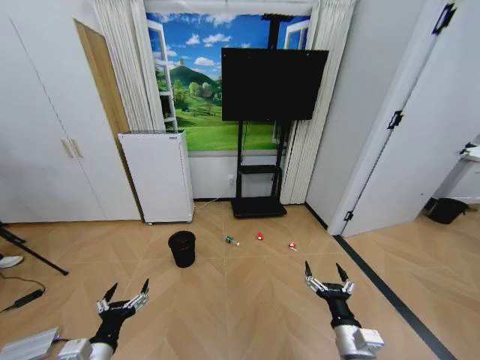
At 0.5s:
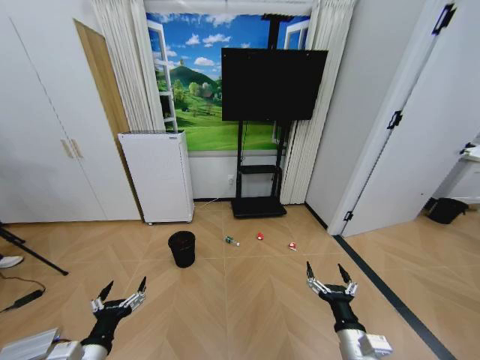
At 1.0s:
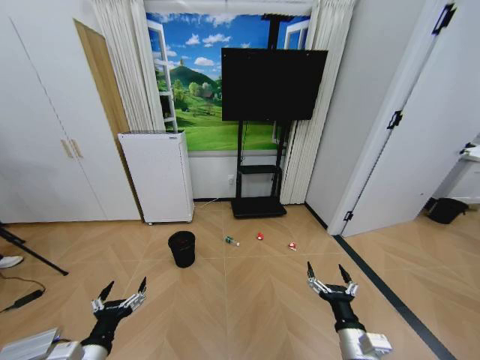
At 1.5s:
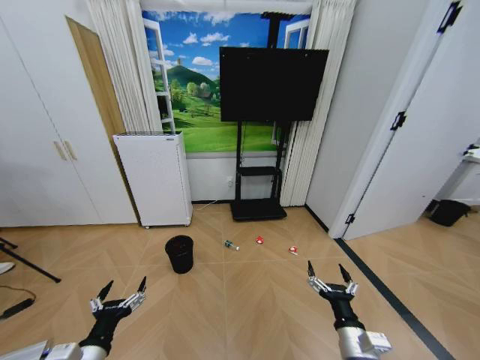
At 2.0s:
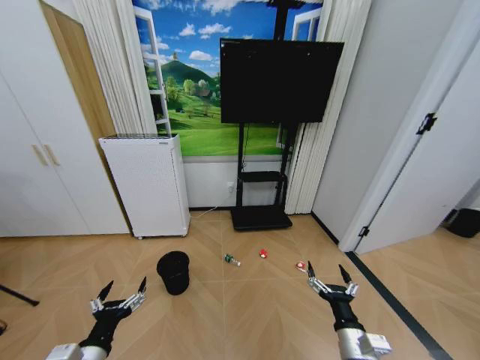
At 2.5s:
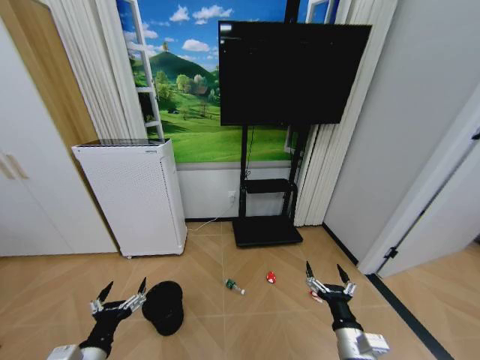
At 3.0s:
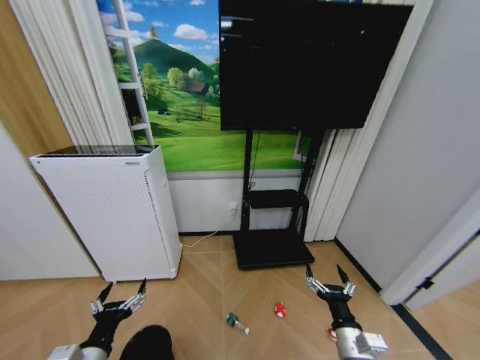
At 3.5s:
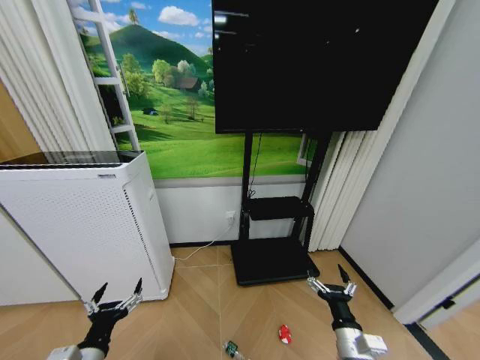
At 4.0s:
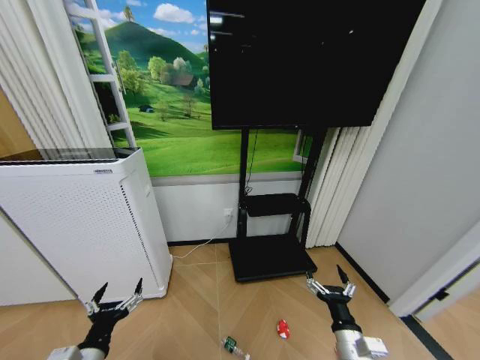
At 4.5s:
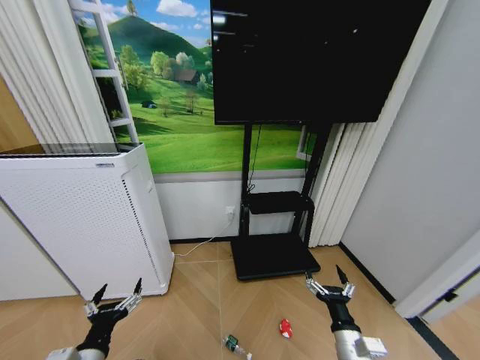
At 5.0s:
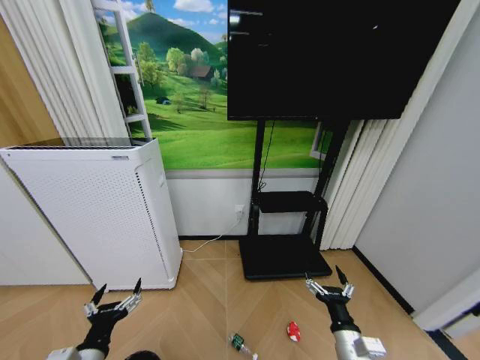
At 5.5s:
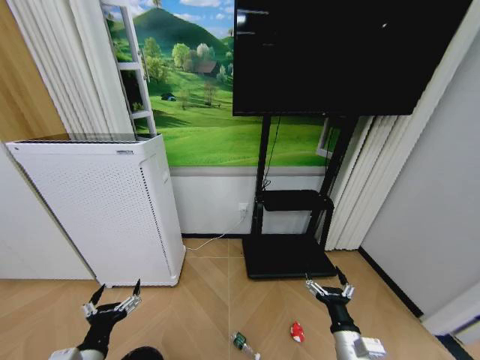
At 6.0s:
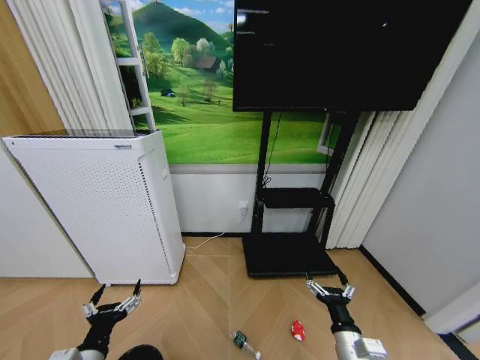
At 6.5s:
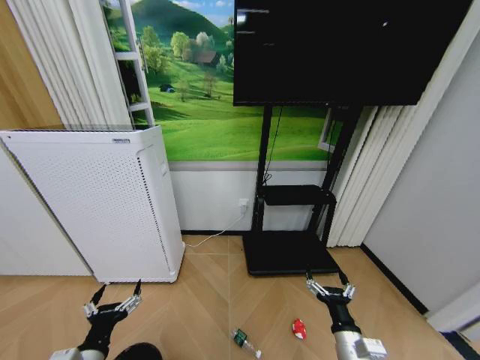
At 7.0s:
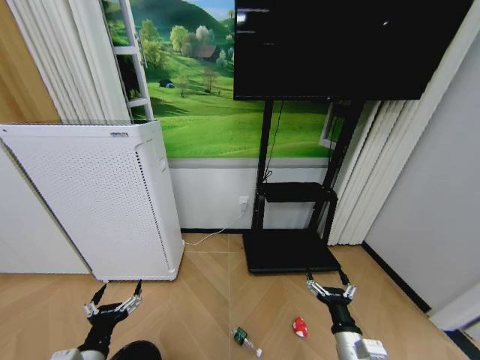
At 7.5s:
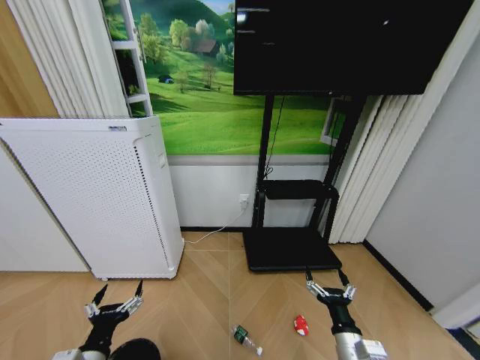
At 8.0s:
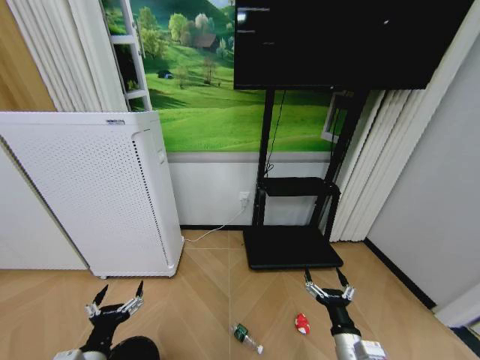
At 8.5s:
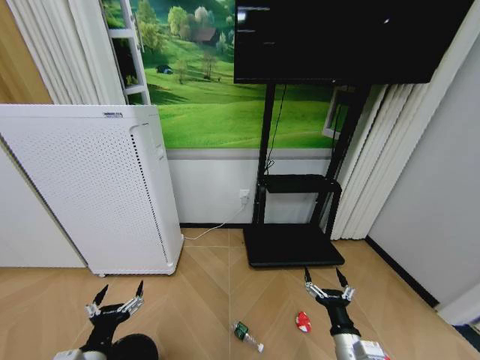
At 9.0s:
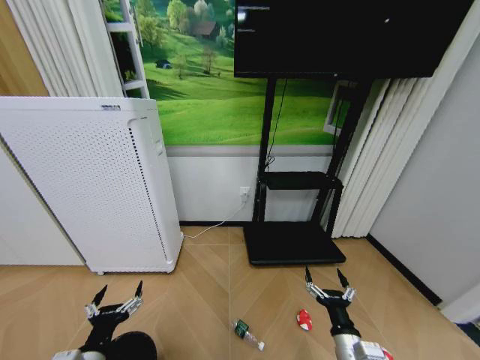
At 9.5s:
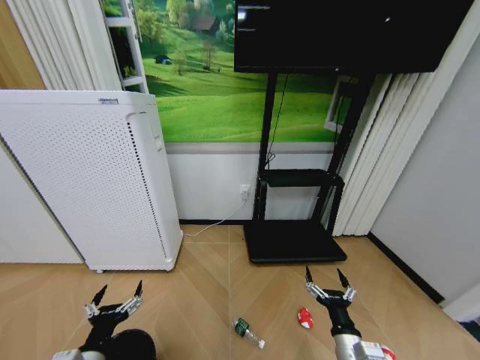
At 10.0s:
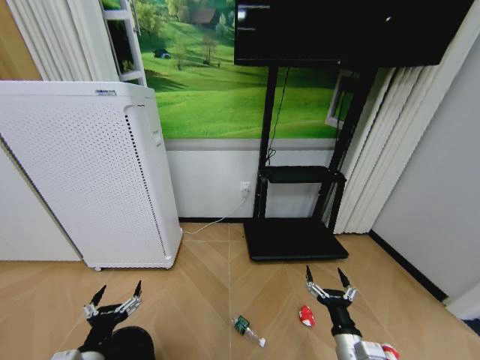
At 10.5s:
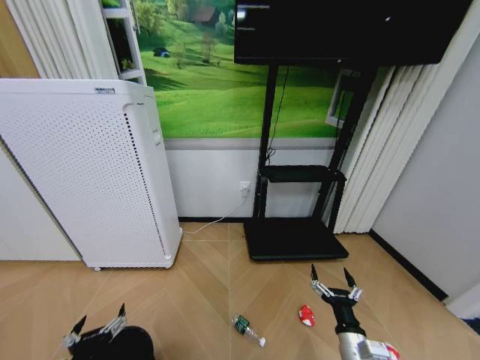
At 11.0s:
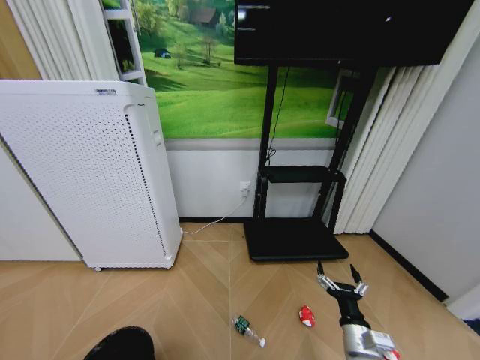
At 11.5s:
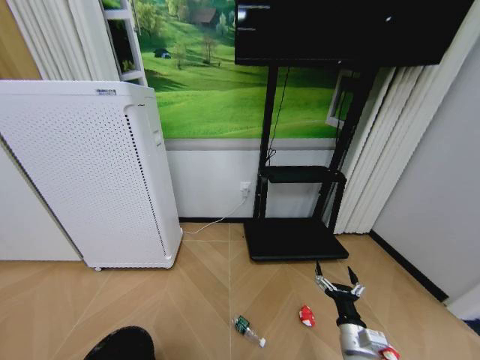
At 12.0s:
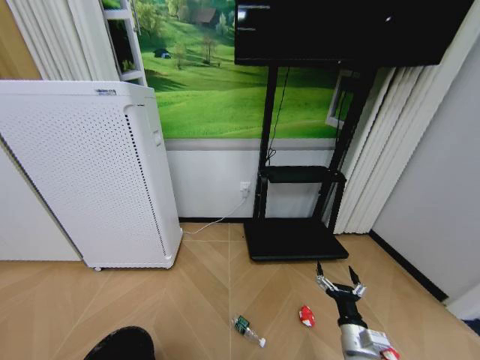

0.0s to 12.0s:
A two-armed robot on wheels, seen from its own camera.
Task of the whole recording: Pick up the trash bin and place the garbage on the floor into it.
10.0s to 12.0s: The left gripper is displaced downward and to the left by roughly 10 cm.

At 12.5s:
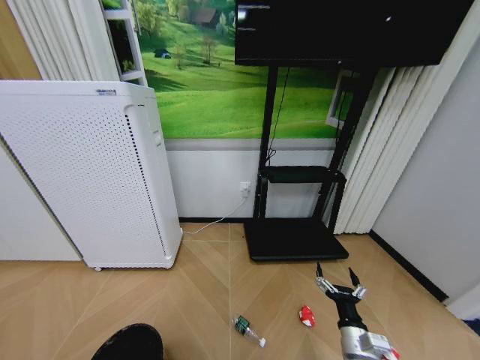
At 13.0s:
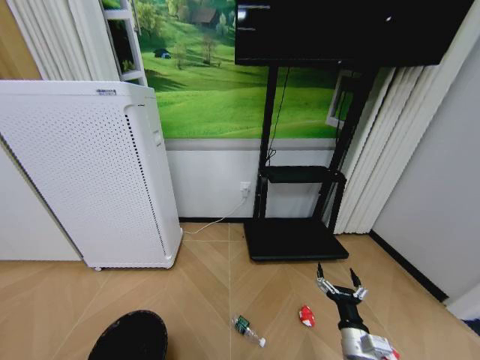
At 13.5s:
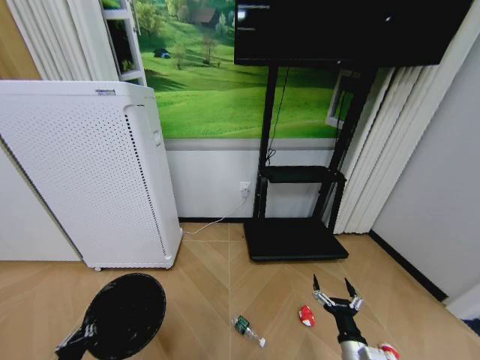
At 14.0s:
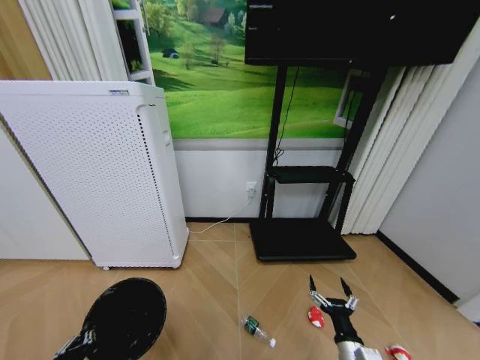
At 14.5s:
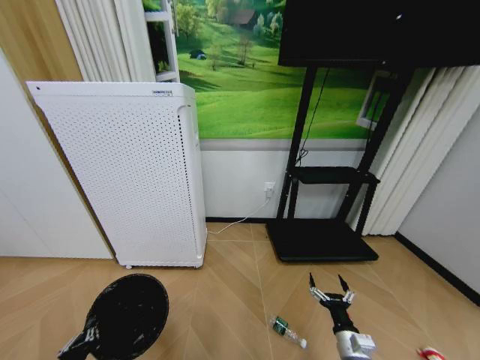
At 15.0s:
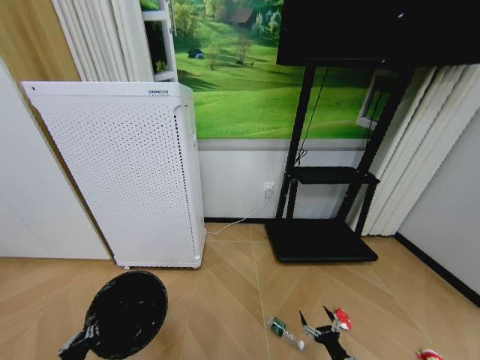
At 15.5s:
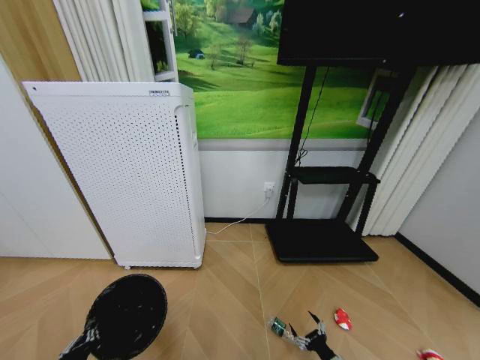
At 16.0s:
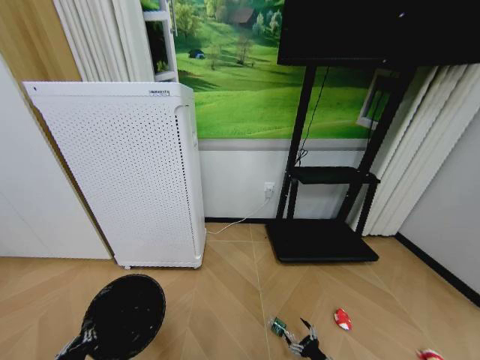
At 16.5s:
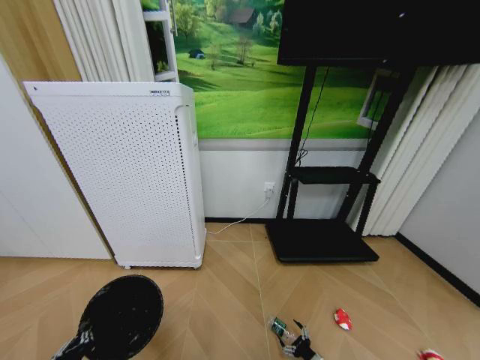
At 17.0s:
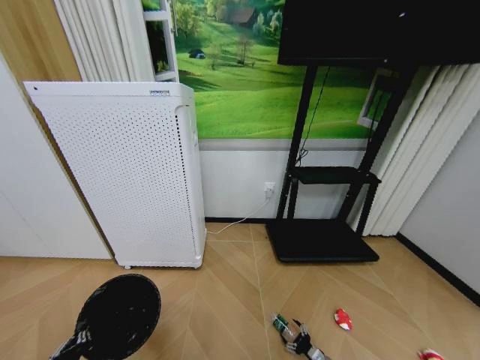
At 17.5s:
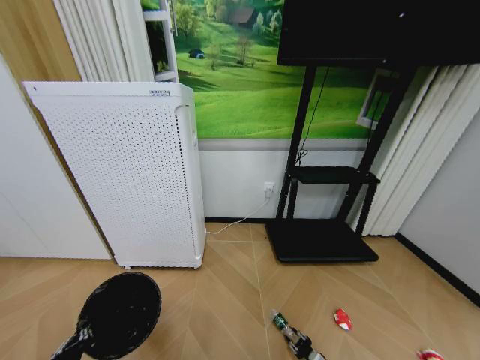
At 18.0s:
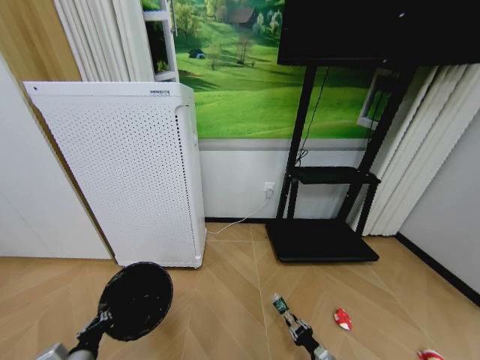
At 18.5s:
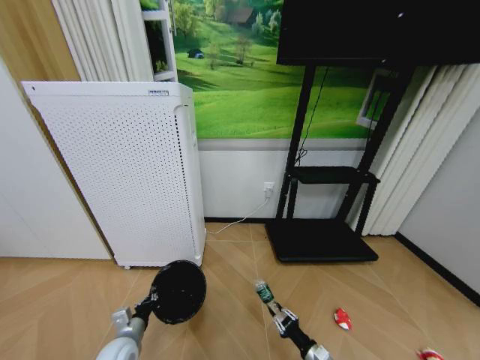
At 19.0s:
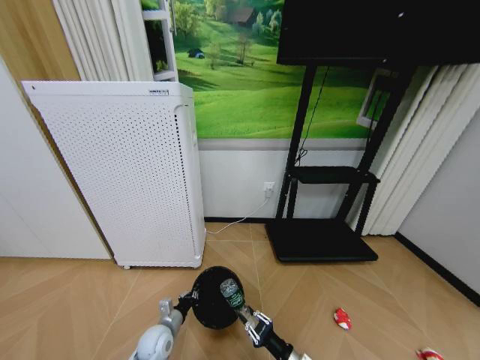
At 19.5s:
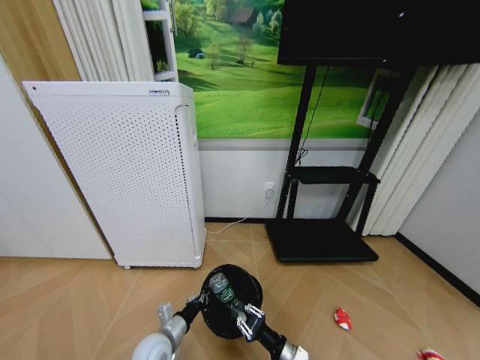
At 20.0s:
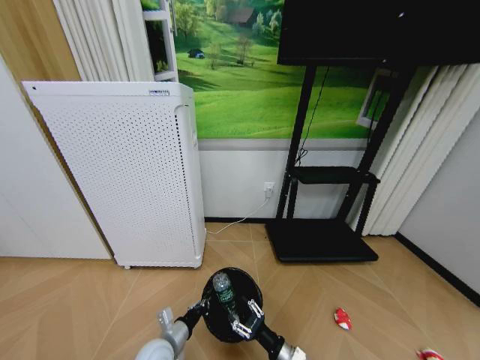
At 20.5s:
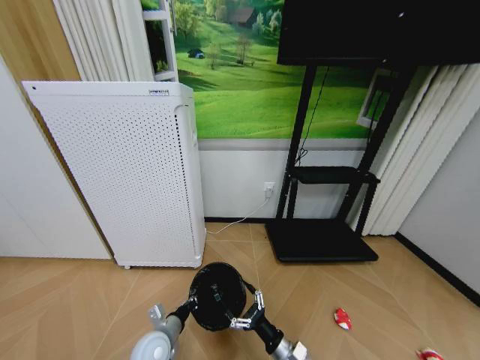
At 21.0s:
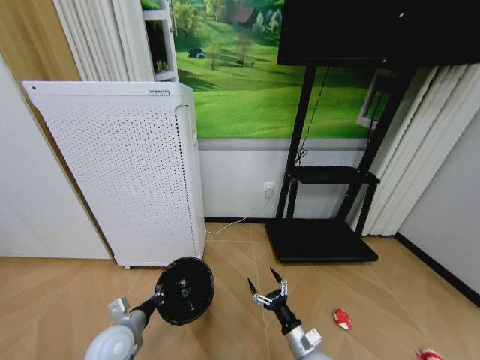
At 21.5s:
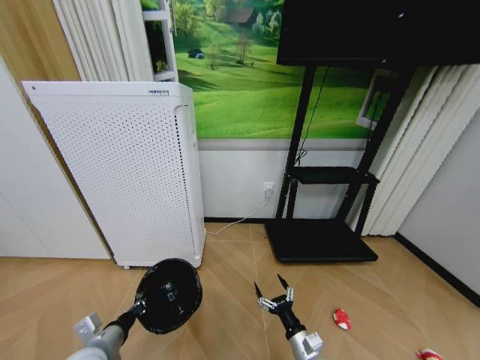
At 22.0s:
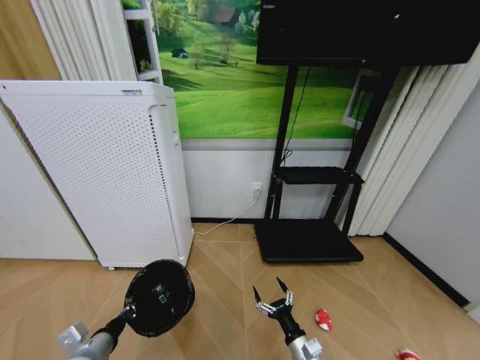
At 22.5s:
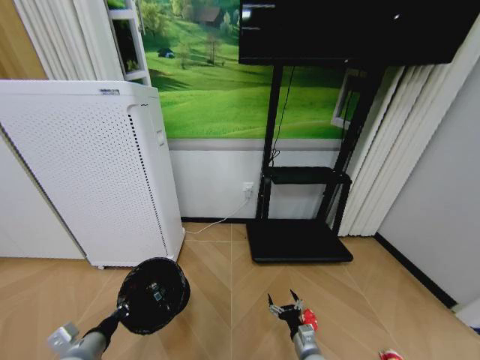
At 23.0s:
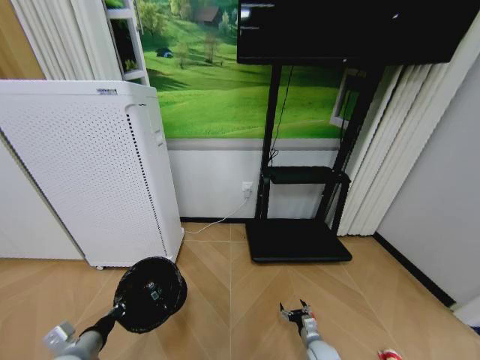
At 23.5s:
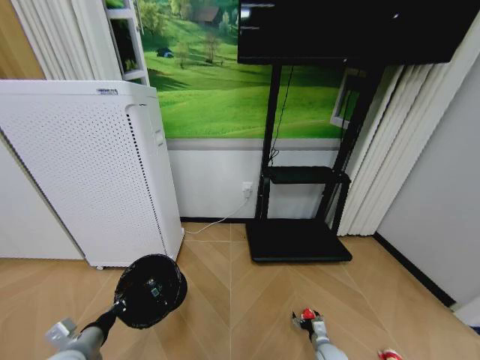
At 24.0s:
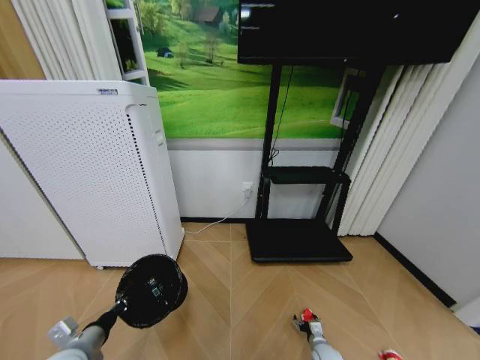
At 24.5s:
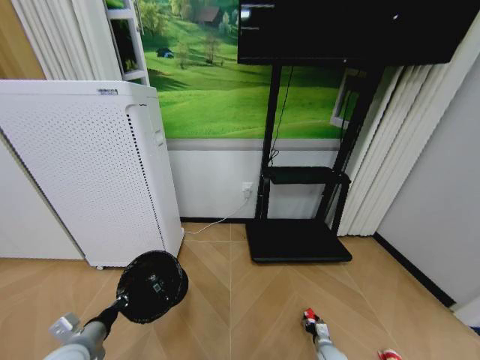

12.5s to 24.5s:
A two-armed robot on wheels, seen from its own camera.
Task of the whole recording: Pick up the trash bin and place the garbage on the floor into it.
12.5s to 14.5s: The right gripper moves downward, roughly 5 cm.
14.5s to 16.5s: The right gripper goes some 20 cm downward.
16.5s to 18.5s: The left gripper heads forward and downward, covering approximately 15 cm. Meanwhile the right gripper moves upward, roughly 10 cm, and closes up.
18.5s to 20.5s: The left gripper heads to the right, covering about 10 cm; the right gripper goes approximately 15 cm to the left and upward, and opens.
20.5s to 22.5s: The right gripper heads to the right and downward, covering approximately 5 cm; the left gripper is displaced to the left, upward and backward by about 20 cm.
22.5s to 24.5s: The right gripper shifts roughly 15 cm downward and to the right, and closes its fingers.

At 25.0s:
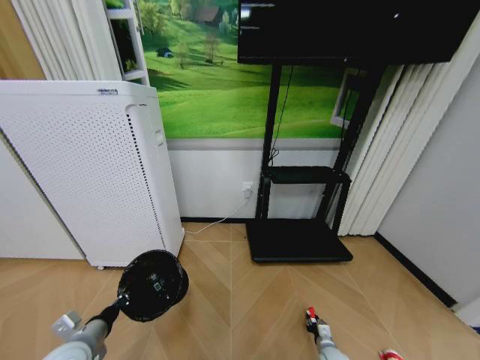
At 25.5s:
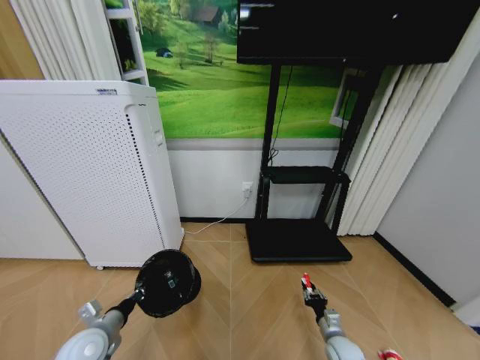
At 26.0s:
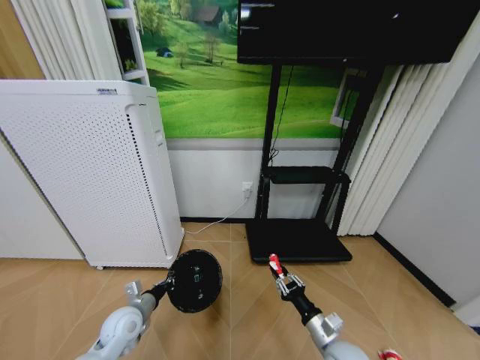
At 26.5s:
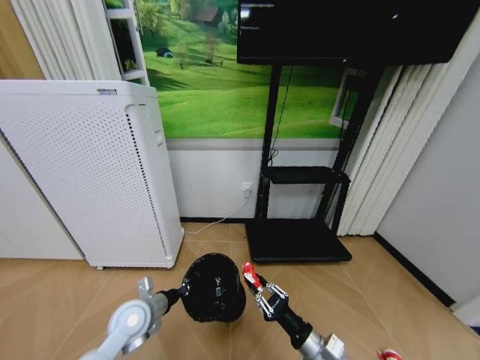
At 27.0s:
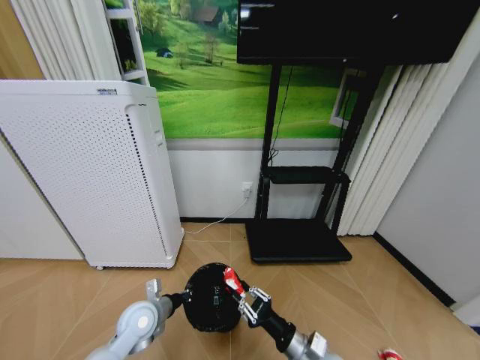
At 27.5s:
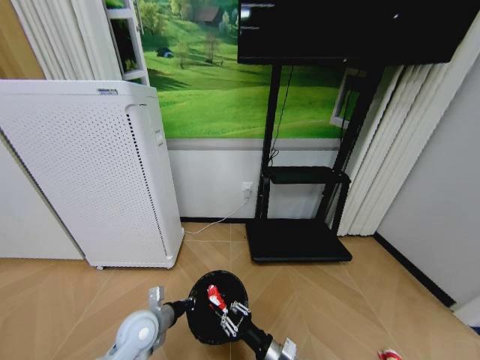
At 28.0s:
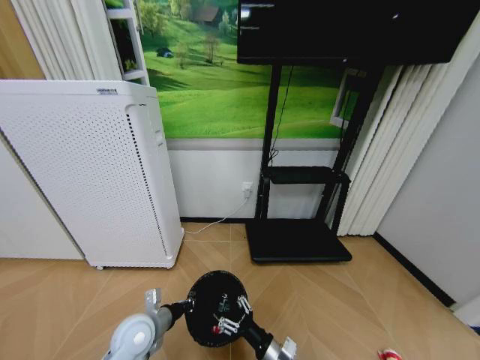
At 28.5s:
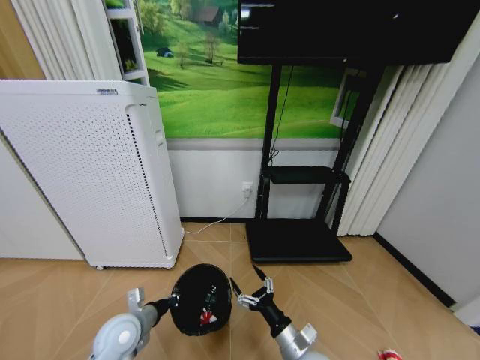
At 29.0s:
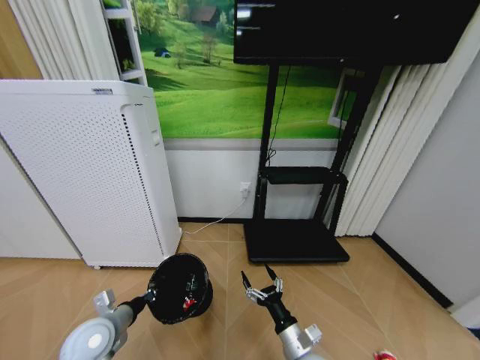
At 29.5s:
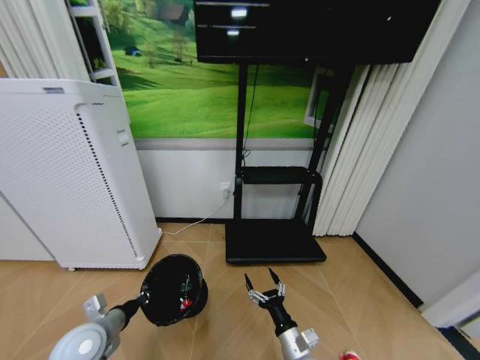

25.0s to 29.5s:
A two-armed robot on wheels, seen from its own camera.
Task of the whole recording: Pick up the trash bin and place the garbage on the floor into it.
25.0s to 27.0s: The right gripper heads upward and to the left, covering approximately 30 cm, while the left gripper goes some 15 cm to the right and forward.
27.0s to 29.5s: The right gripper moves approximately 5 cm, and opens up, while the left gripper travels to the left and backward by roughly 10 cm.
